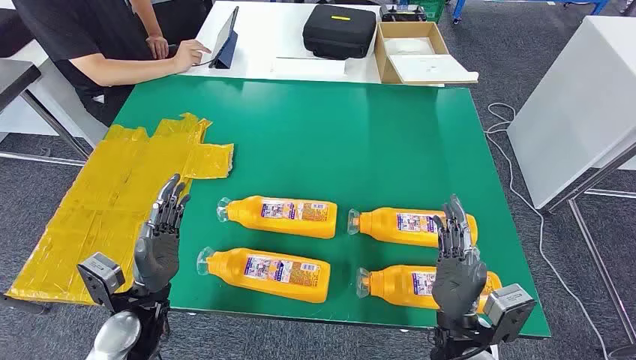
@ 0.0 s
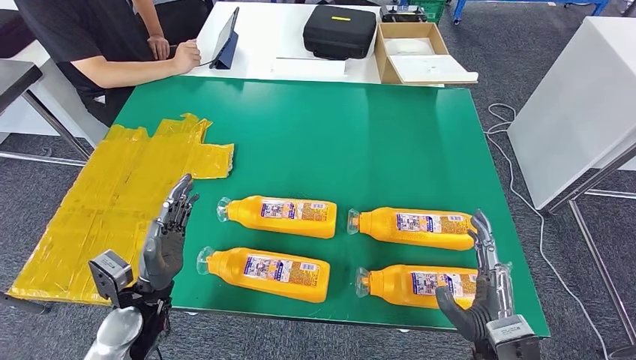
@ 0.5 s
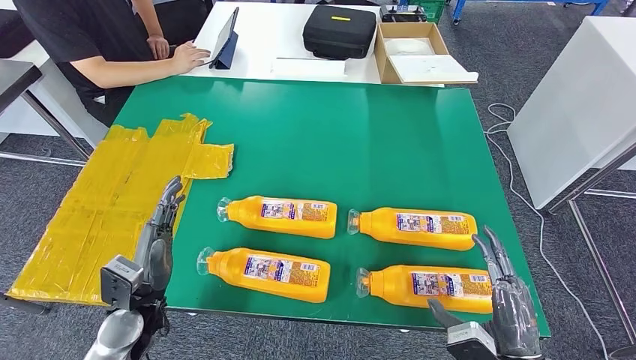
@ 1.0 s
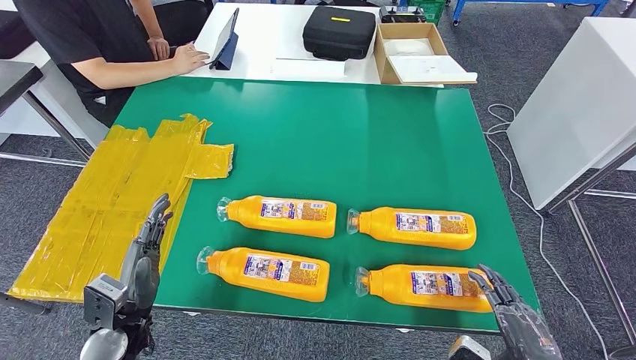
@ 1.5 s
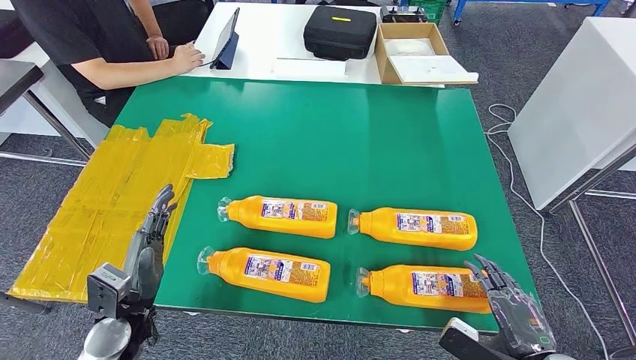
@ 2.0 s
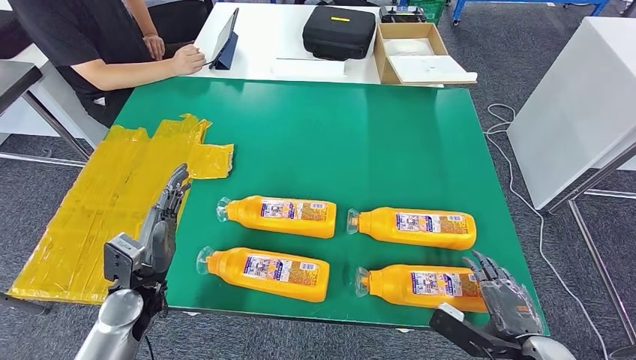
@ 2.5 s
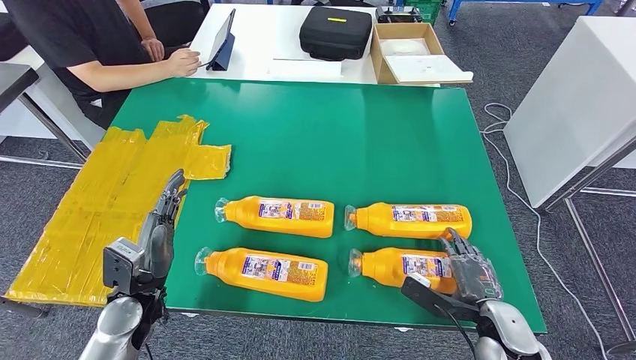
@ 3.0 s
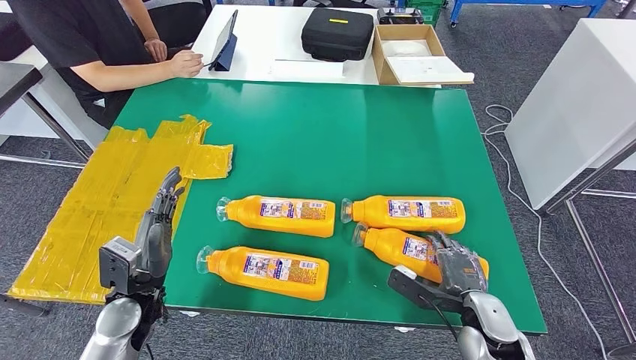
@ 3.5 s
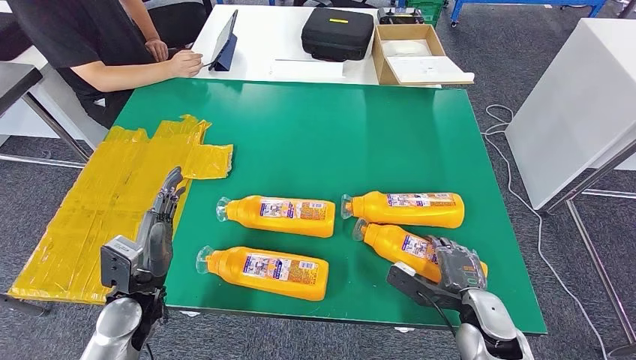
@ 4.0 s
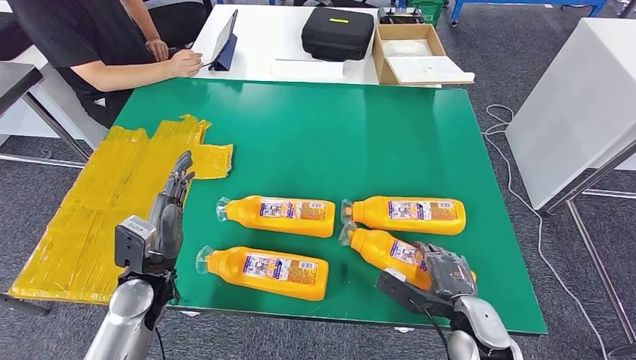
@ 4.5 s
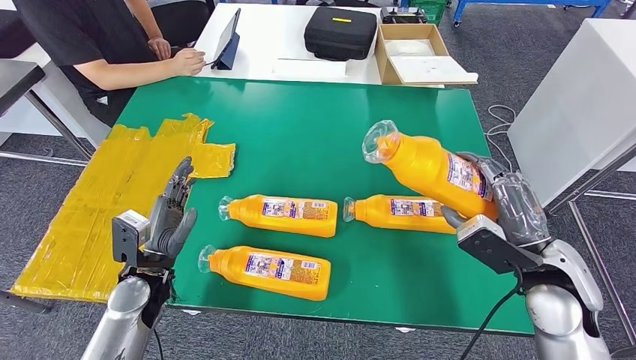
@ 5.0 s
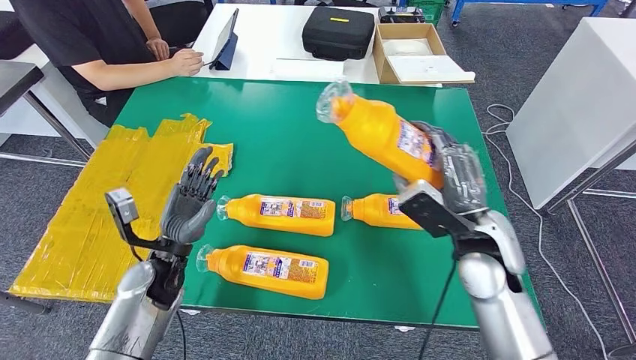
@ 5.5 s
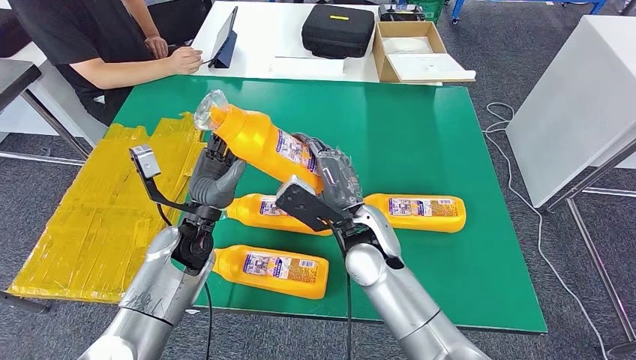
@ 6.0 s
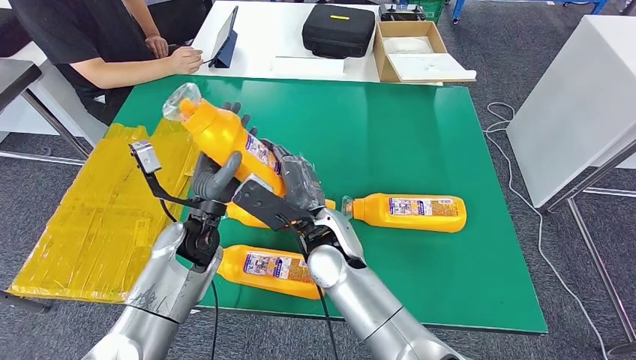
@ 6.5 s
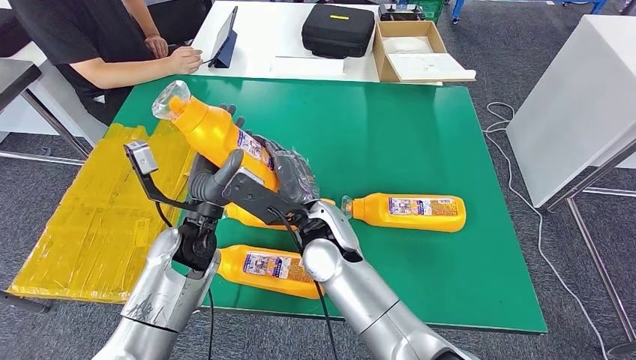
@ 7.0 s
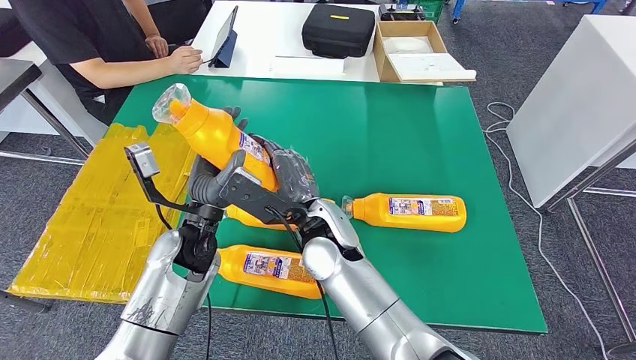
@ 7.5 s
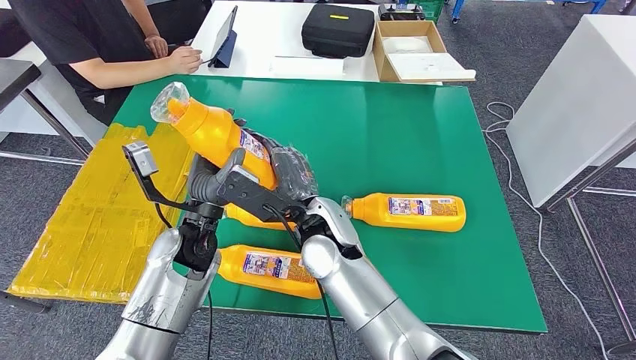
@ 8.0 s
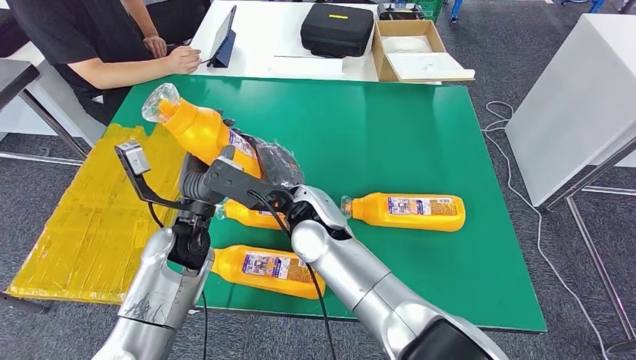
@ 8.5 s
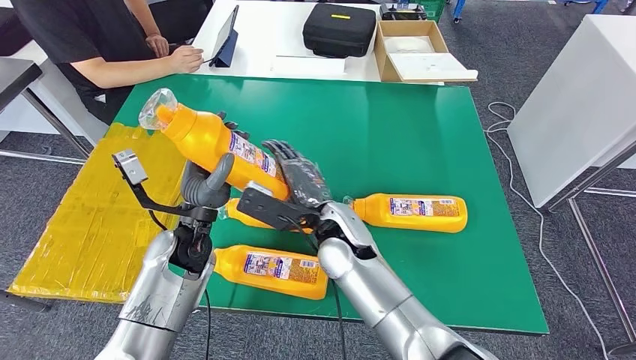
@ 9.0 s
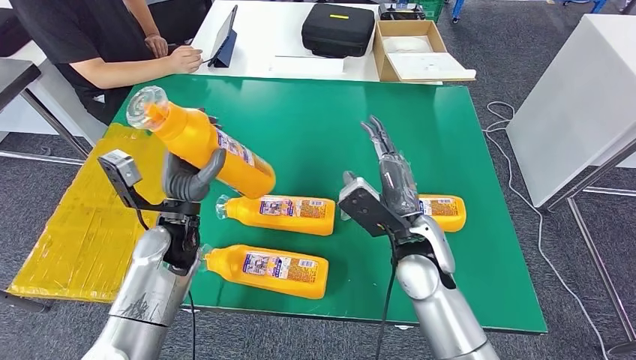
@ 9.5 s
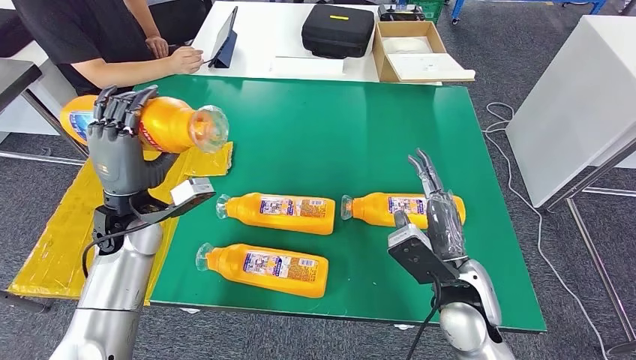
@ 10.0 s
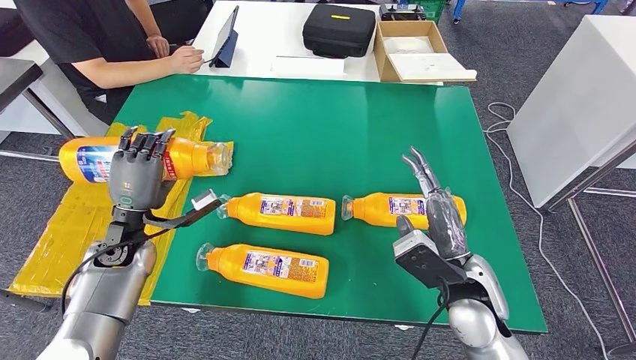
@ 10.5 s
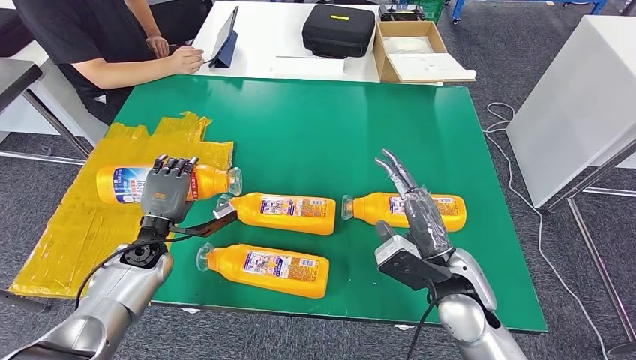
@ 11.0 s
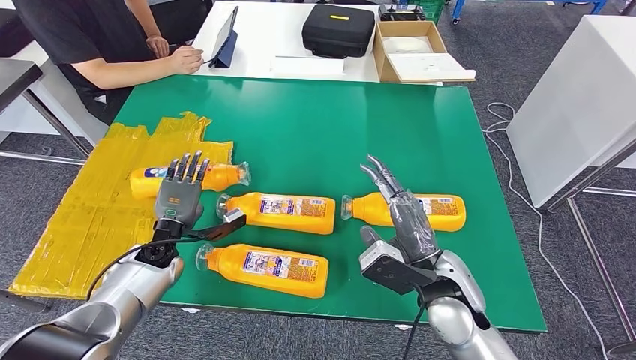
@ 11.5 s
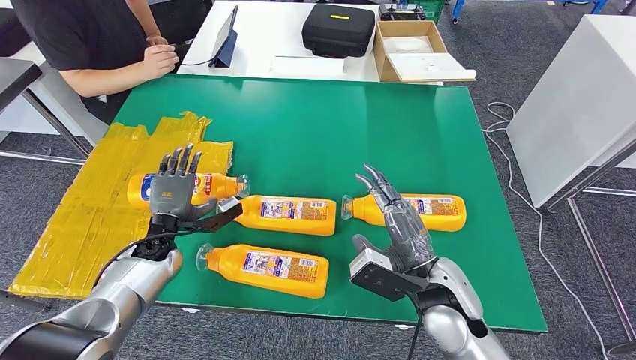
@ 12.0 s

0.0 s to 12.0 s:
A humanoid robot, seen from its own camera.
Step, 0.0 to 5.5 s: Take the fast-moving consumer goods bottle from the table.
2.0 to 4.0 s: The right hand moves forward, to the left and downward, some 15 cm.
6.0 to 8.0 s: The right hand is displaced to the left by some 5 cm.

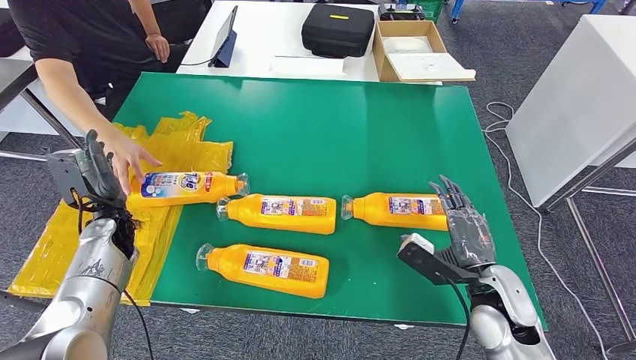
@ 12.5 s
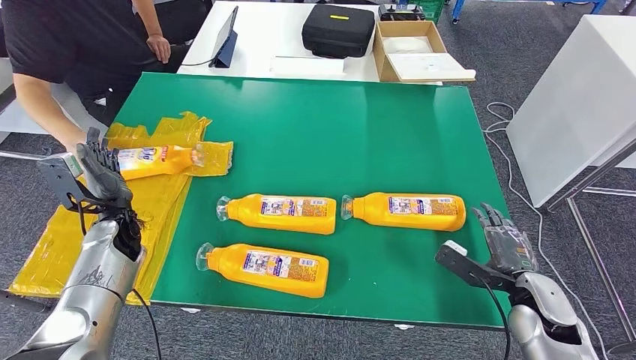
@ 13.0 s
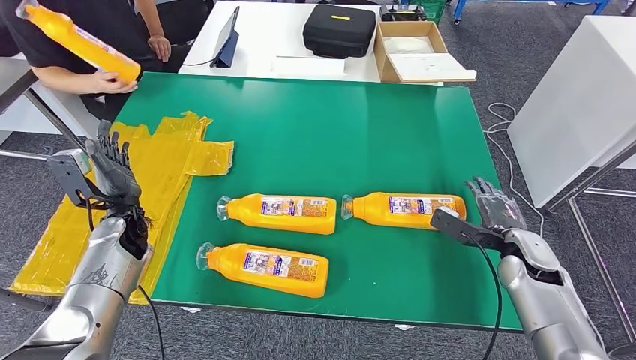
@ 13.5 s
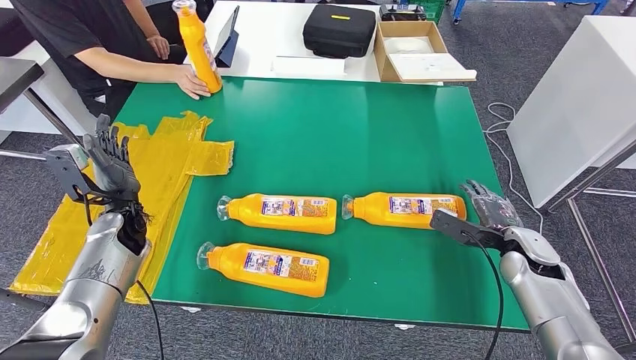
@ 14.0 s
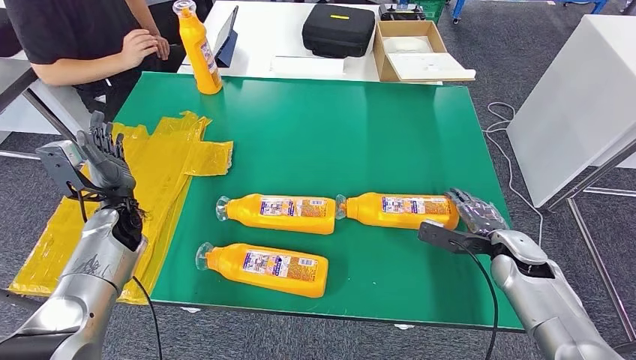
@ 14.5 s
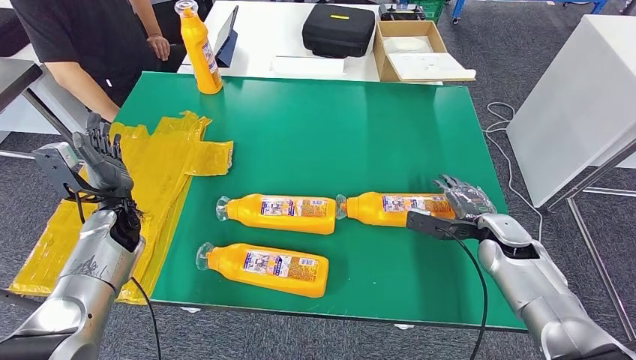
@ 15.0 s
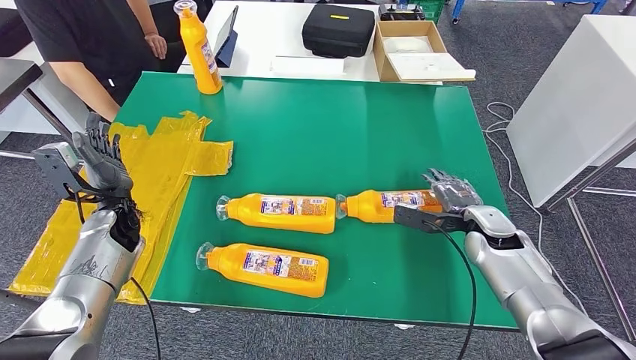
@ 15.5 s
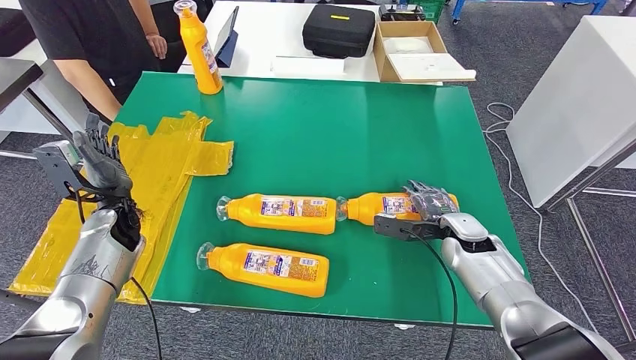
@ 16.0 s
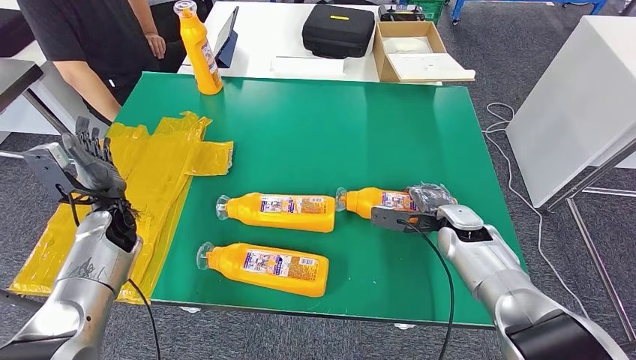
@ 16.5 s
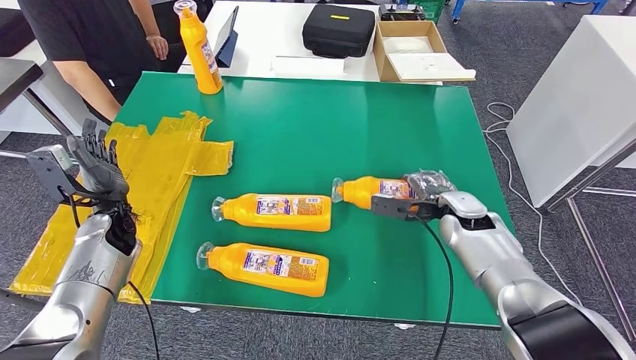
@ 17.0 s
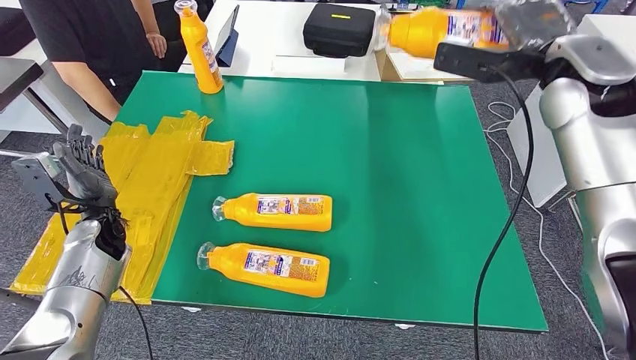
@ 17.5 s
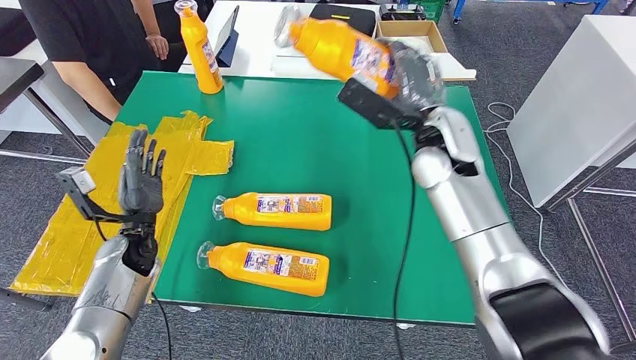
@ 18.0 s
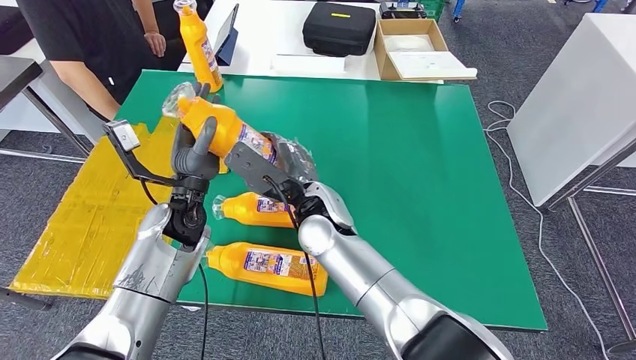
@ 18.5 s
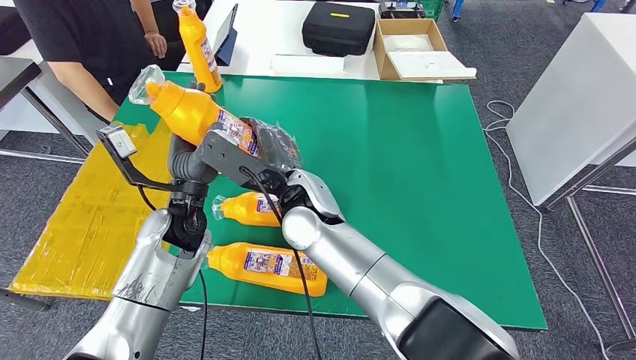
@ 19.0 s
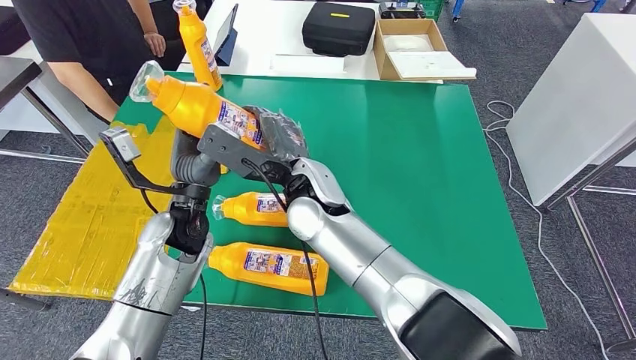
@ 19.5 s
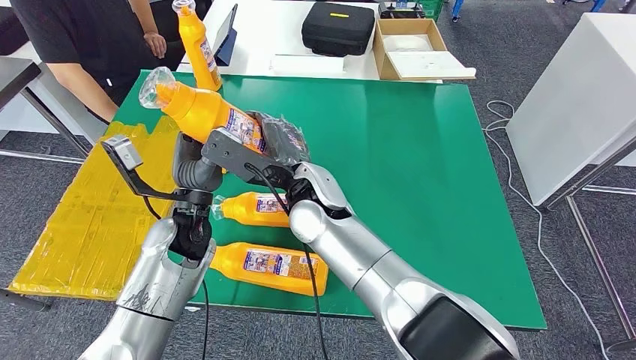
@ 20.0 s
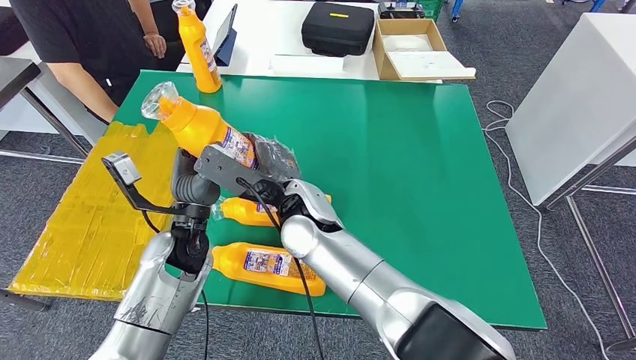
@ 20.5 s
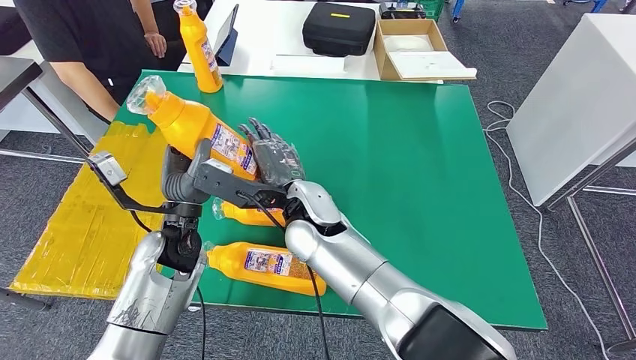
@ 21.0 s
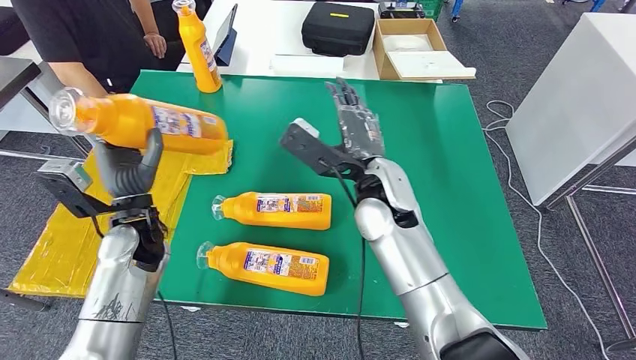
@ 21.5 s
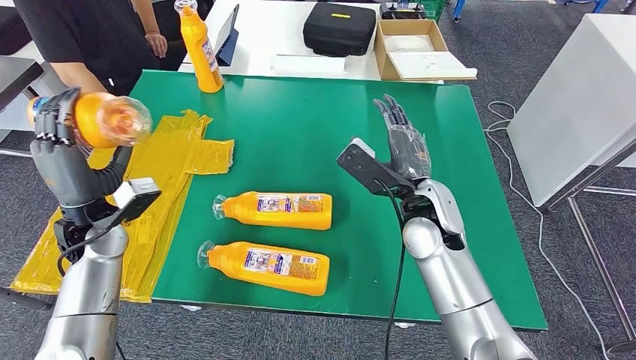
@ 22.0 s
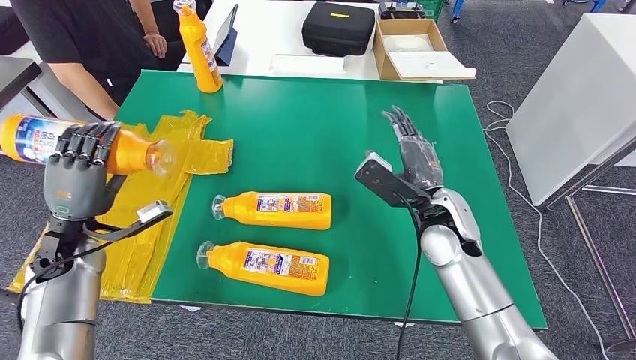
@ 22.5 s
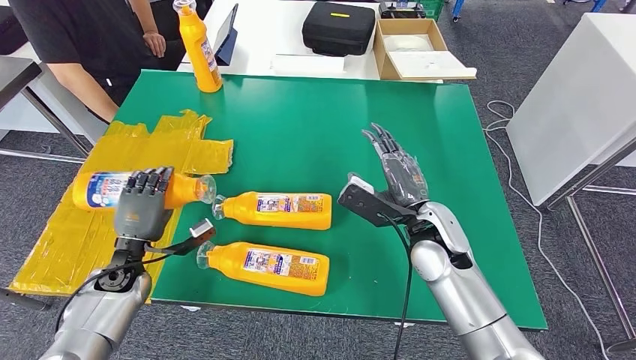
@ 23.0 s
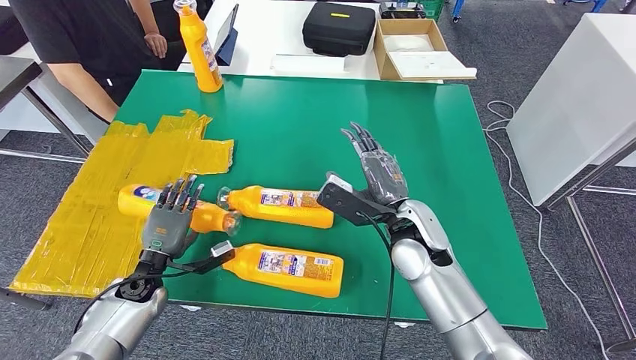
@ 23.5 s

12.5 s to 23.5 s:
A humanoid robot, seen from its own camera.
Step, 12.5 to 18.5 s: Pick up the fast-moving consumer goods bottle from the table.
14.5 to 16.0 s: The right hand shifts approximately 10 cm to the left.
